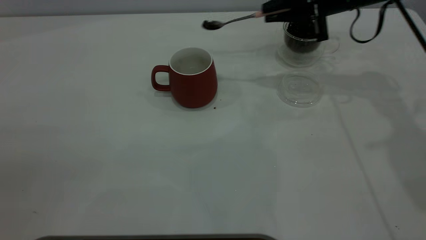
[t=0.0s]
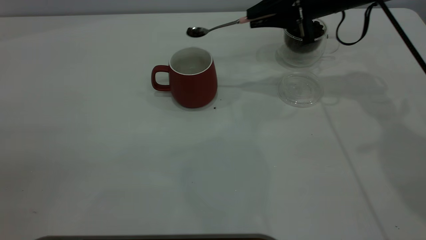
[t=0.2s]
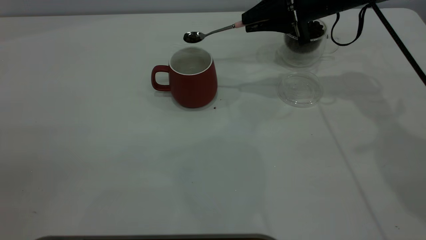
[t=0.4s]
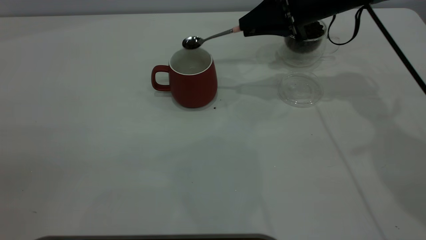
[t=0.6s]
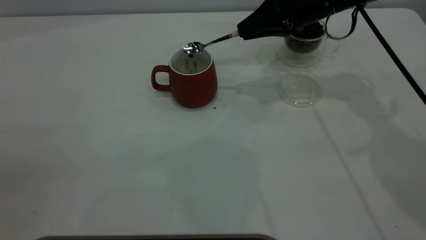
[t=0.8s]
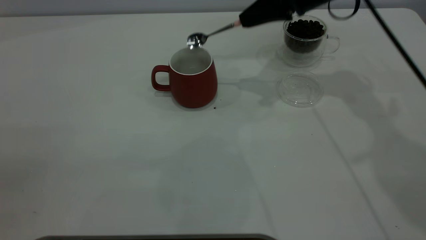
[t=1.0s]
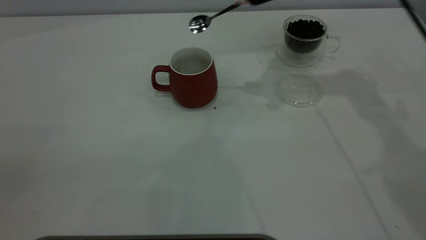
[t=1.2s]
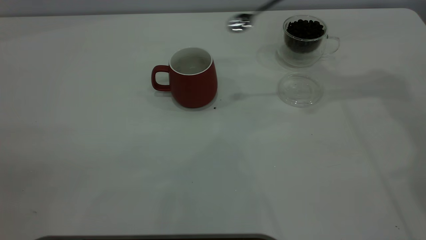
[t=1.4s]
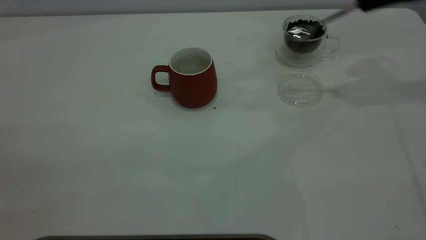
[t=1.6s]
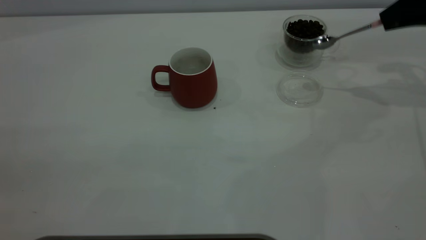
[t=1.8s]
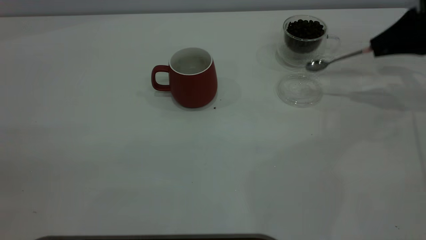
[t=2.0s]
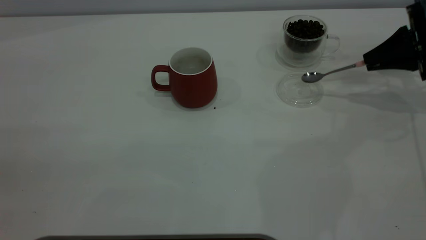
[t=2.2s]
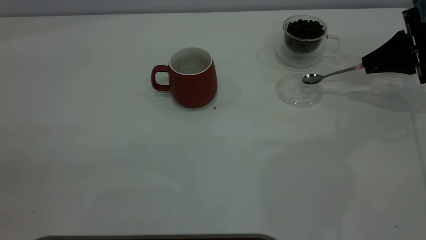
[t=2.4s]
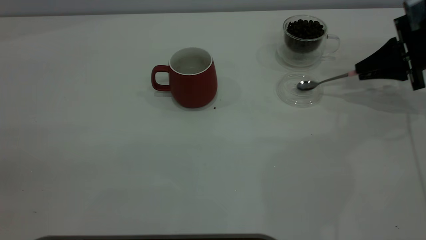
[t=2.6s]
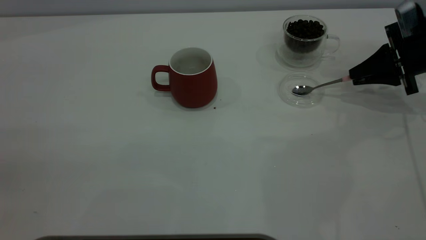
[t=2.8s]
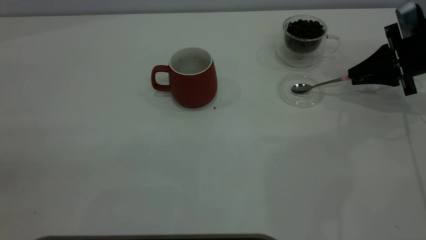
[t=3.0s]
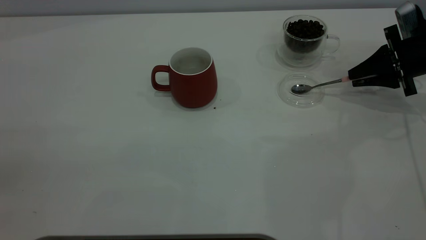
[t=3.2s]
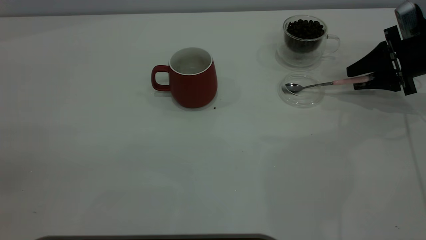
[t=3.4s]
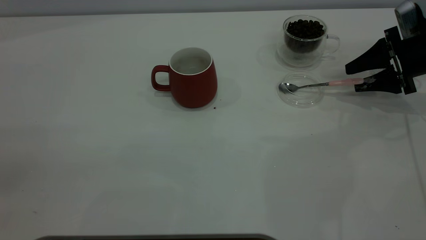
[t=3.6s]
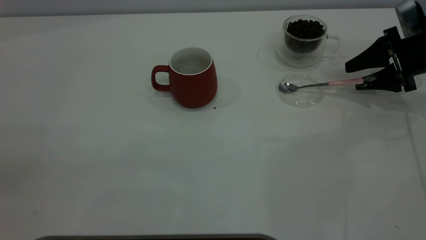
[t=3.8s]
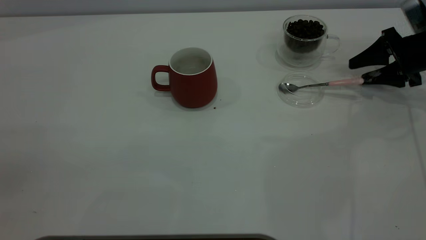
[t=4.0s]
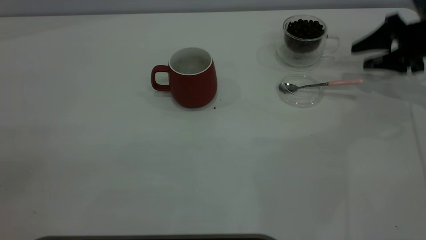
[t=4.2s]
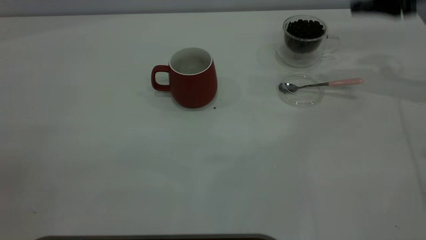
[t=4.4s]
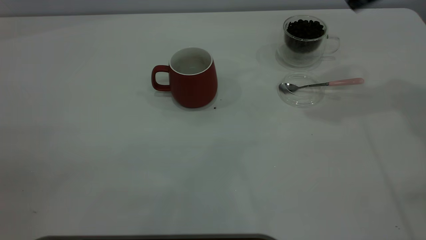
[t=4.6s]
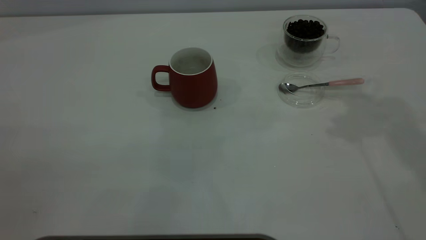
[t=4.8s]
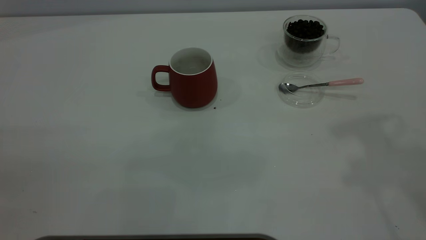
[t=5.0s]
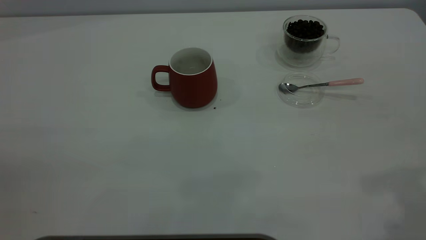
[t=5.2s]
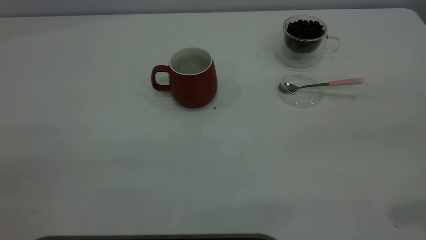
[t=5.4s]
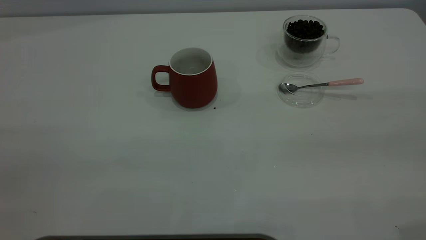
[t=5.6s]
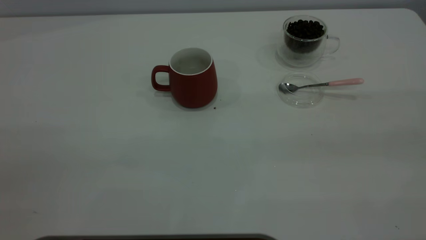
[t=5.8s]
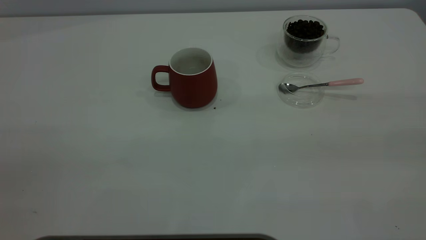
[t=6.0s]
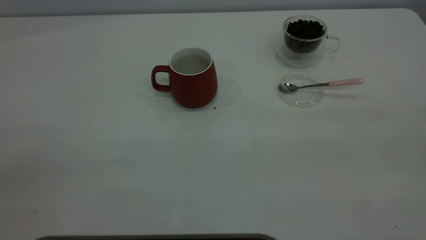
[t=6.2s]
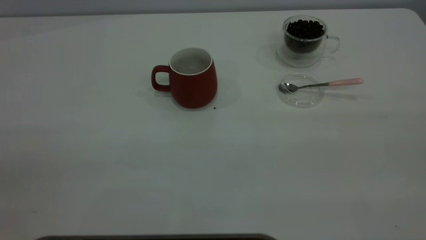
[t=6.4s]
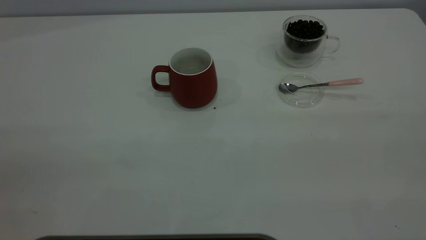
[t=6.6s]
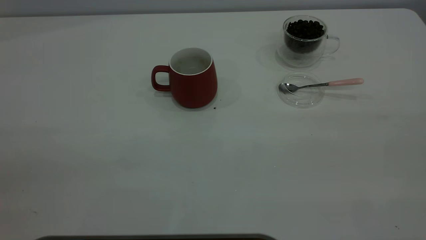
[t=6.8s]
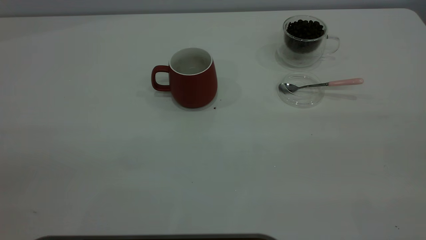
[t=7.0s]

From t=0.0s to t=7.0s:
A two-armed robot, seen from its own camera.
Task of the whole recording: the left gripper place the red cup in the center of the table, the right gripper take the pink spoon from the cup lid and scoop out the coffee beans from the coffee cup and put them into the red cup, the right gripper put the spoon back into the cup lid.
Step, from t=1.2s to t=4.0s: Place the spoon back in its original place.
From t=0.0s to t=1.4s: The right gripper shifts some 10 cm upward.
From t=1.4s to t=2.8s: The right gripper goes roughly 20 cm downward and to the right.
From t=2.8s to t=4.2s: The right gripper opens.
From t=4.2s to t=5.6s: The right gripper goes some 40 cm backward and upward.
